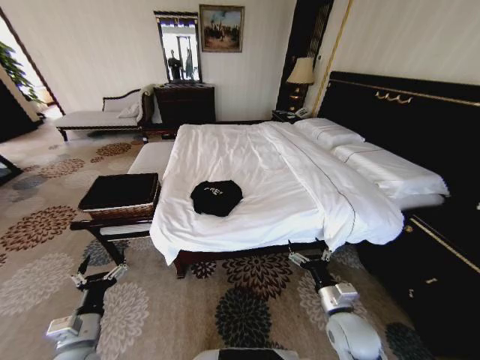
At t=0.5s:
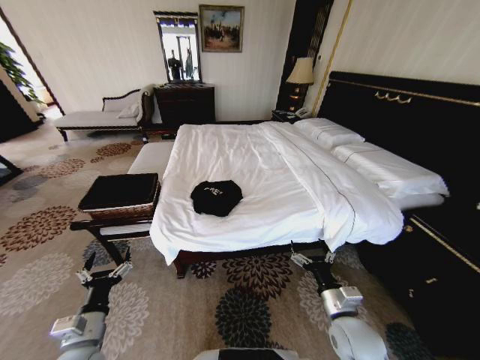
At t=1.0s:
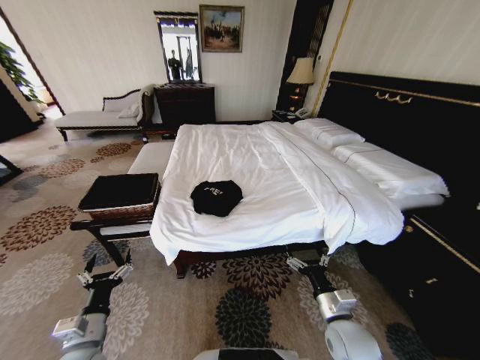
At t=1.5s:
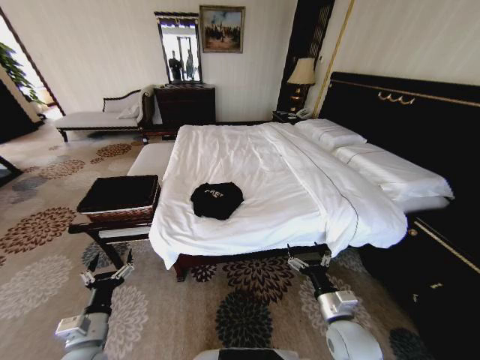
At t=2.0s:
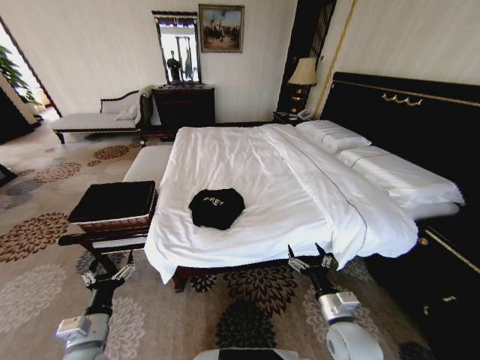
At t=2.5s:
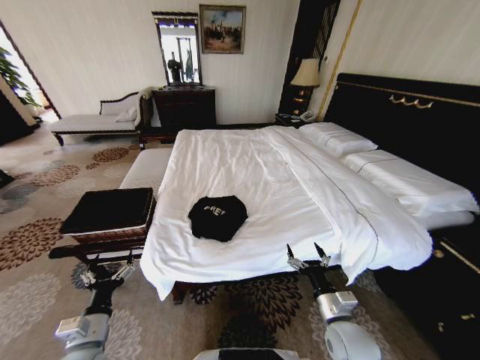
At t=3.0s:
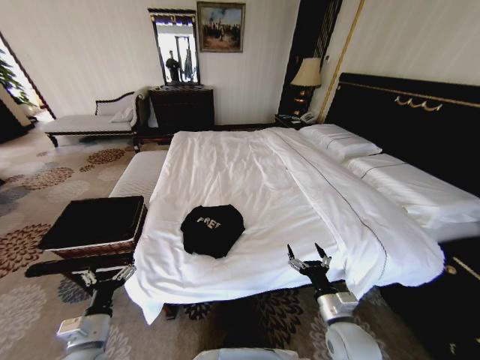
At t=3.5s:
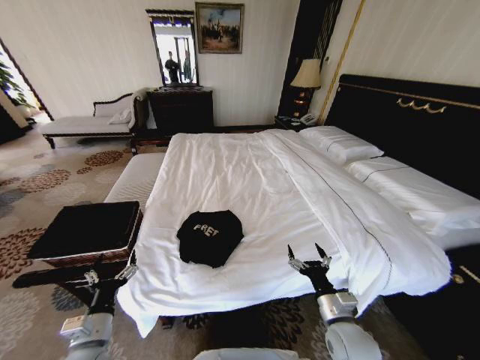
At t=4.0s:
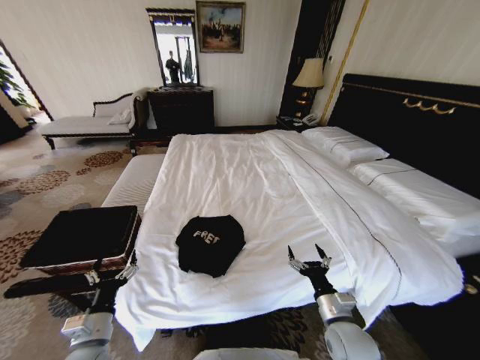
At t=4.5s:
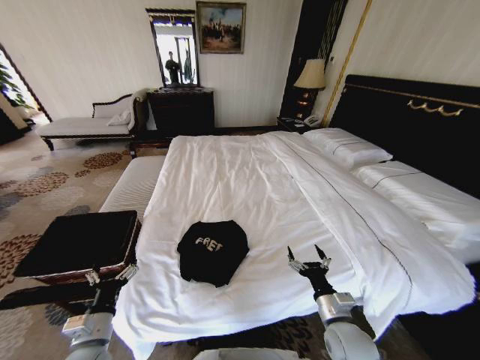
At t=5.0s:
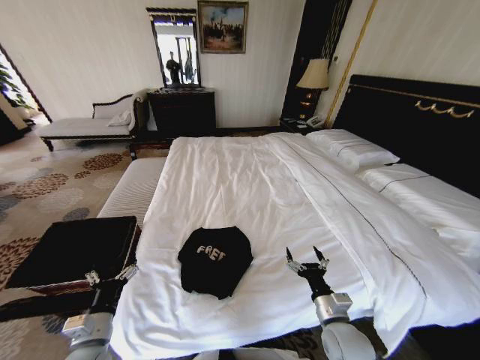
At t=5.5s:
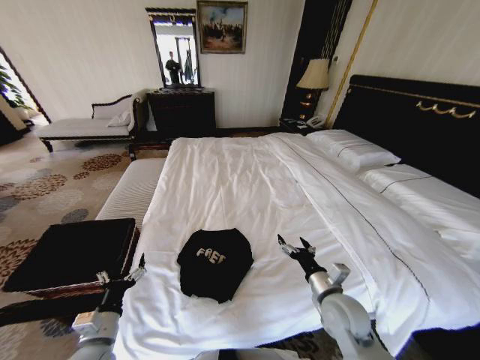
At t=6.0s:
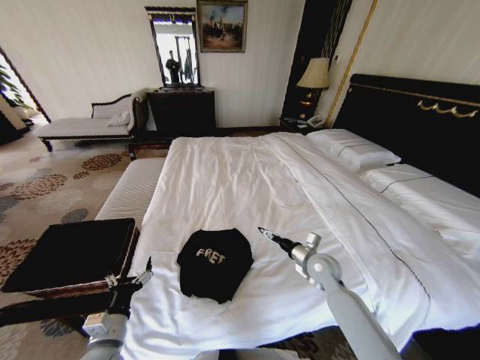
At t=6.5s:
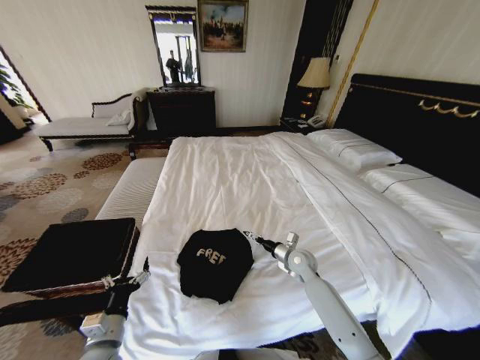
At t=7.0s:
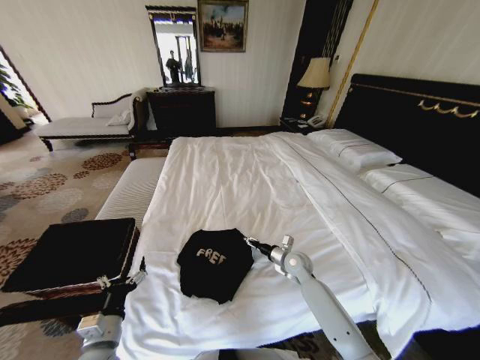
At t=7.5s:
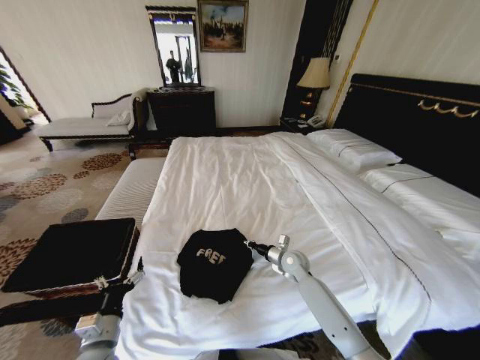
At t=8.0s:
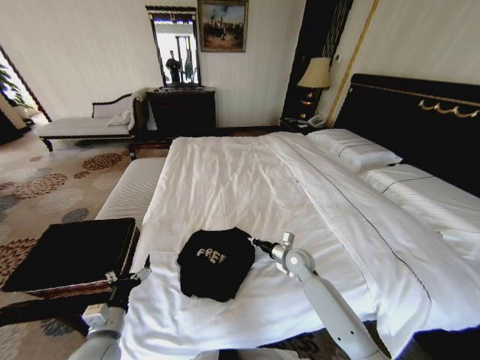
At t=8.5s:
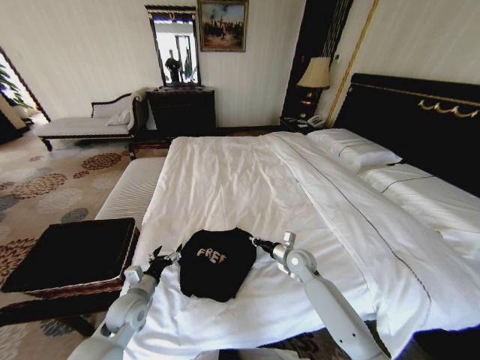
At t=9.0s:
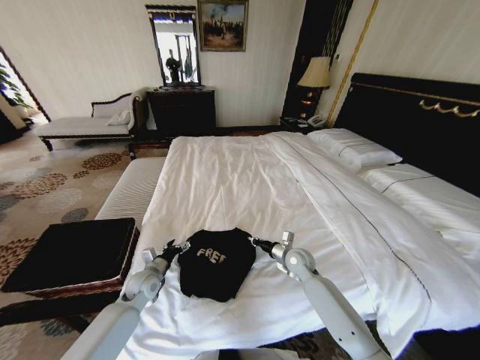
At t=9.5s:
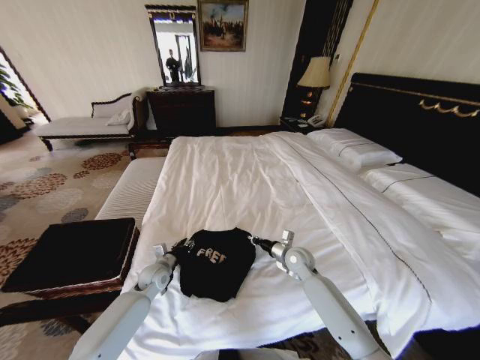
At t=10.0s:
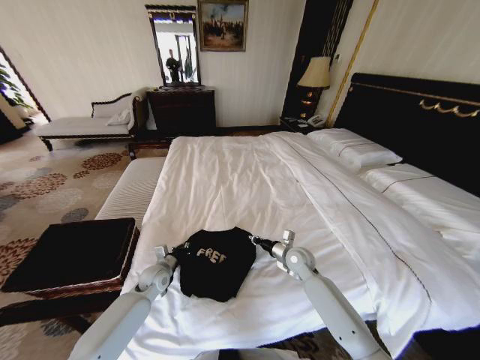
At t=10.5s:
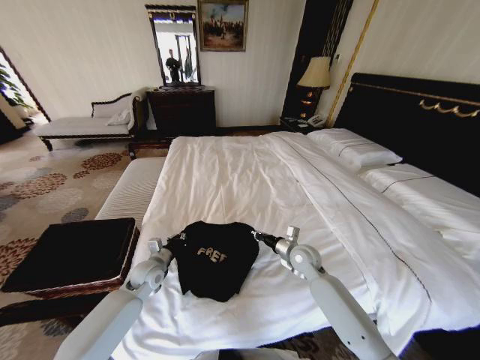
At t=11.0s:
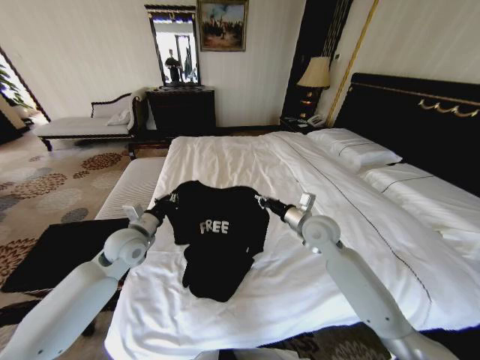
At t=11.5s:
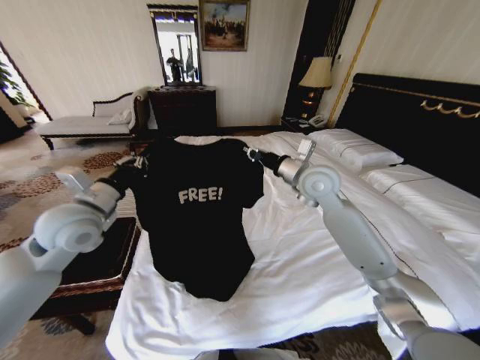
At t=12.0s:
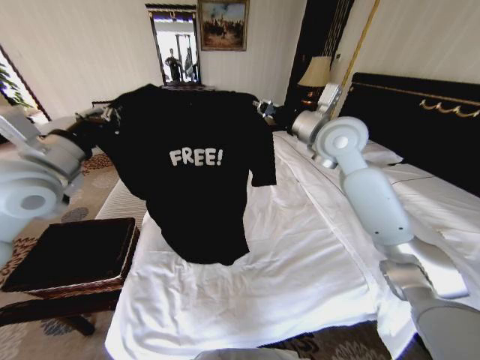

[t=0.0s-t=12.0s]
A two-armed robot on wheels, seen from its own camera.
Task of the whole recording: Fold the clothes on the bed and place them into the basket.
t=4.0s to t=6.0s: The right gripper moves forward, approximately 20 cm.
t=6.0s to t=8.0s: The right gripper shifts by approximately 10 cm, and closes up.
t=8.0s to t=10.0s: The left gripper is displaced forward by roughly 20 cm, and closes its fingers.
t=10.0s to t=12.0s: Both grippers move upward, some 40 cm.

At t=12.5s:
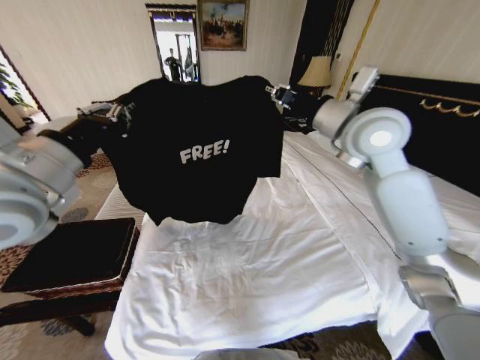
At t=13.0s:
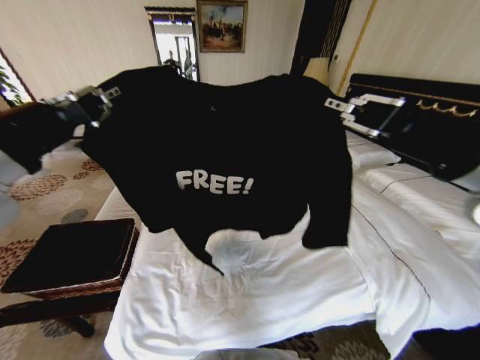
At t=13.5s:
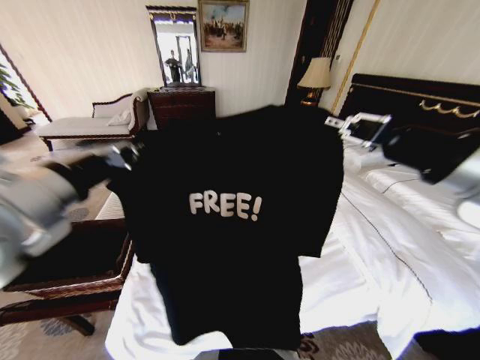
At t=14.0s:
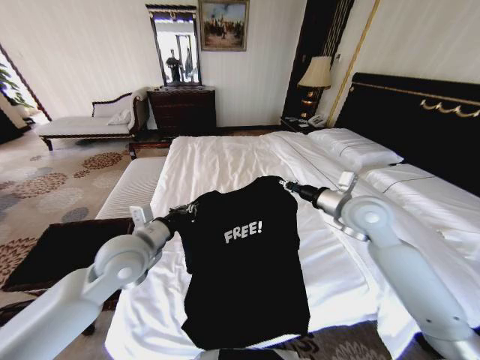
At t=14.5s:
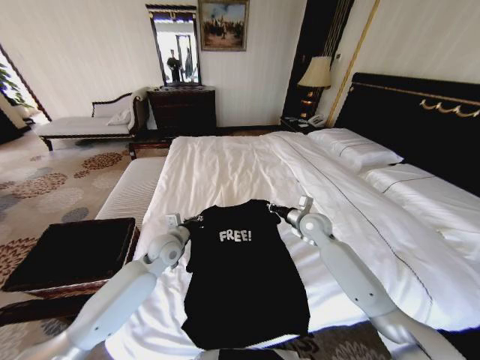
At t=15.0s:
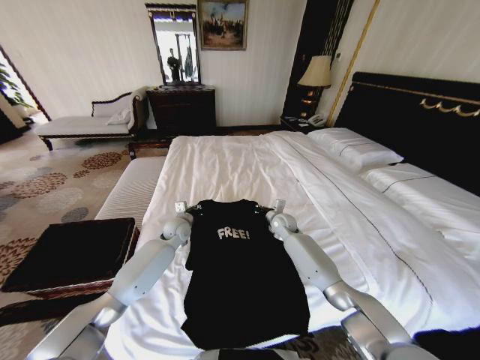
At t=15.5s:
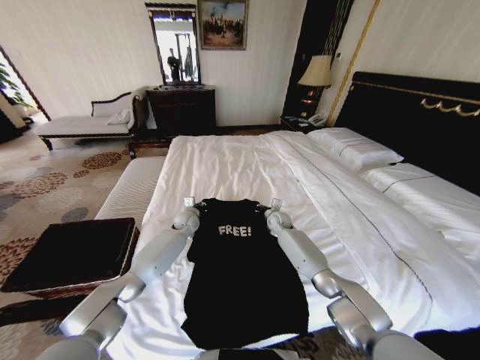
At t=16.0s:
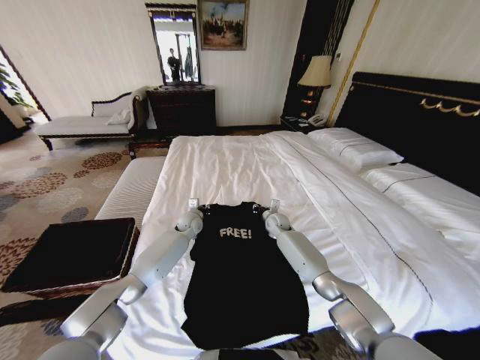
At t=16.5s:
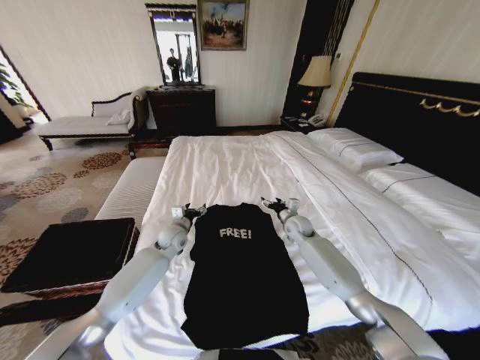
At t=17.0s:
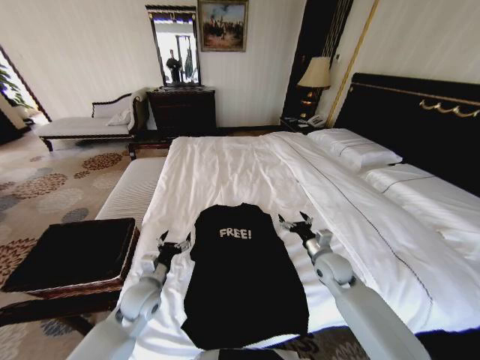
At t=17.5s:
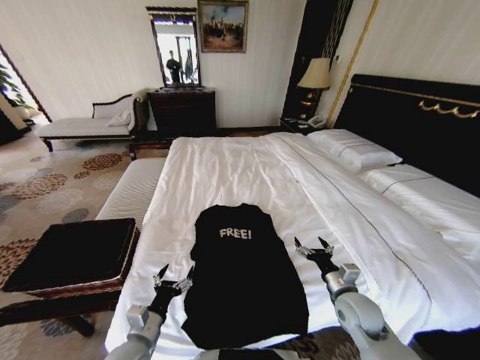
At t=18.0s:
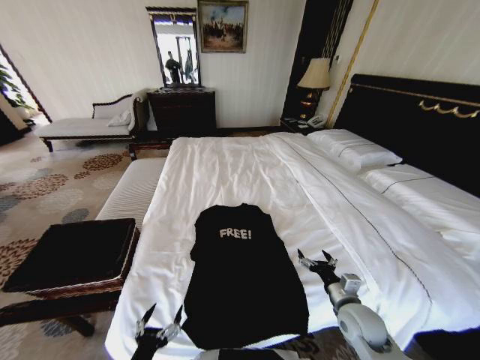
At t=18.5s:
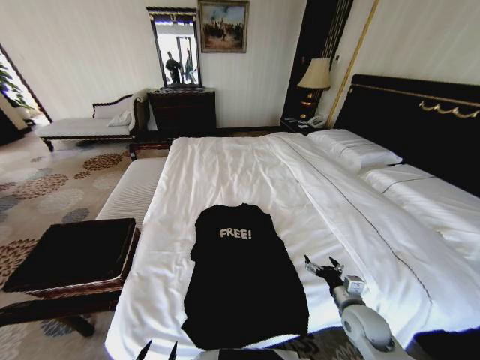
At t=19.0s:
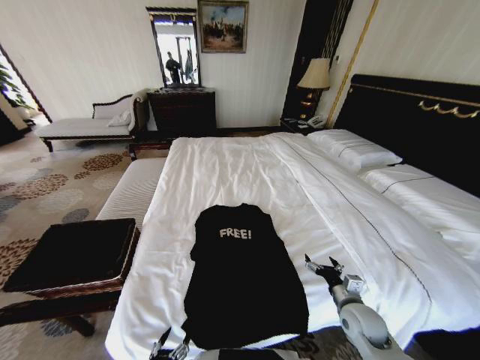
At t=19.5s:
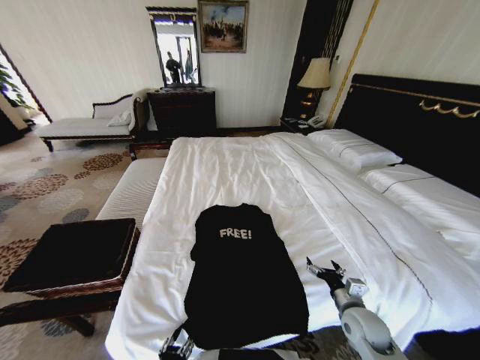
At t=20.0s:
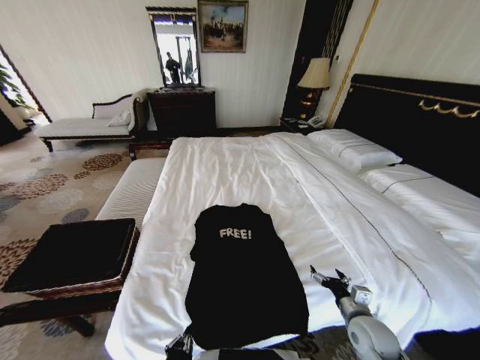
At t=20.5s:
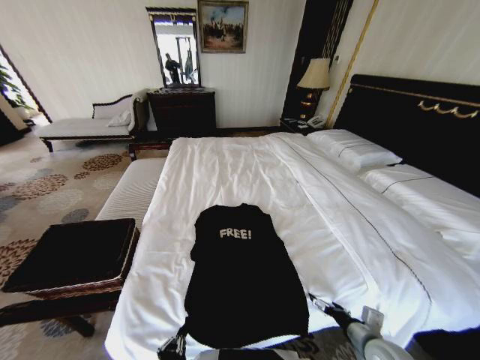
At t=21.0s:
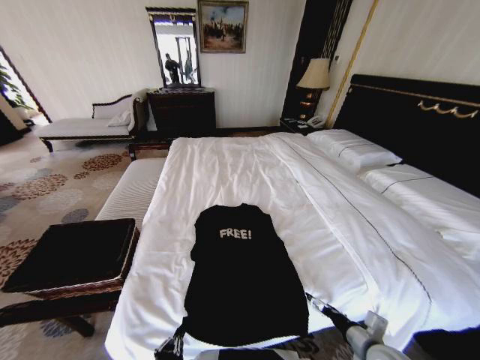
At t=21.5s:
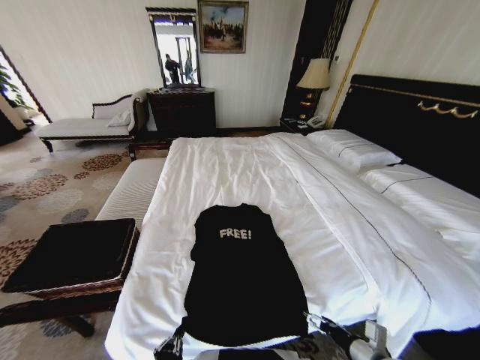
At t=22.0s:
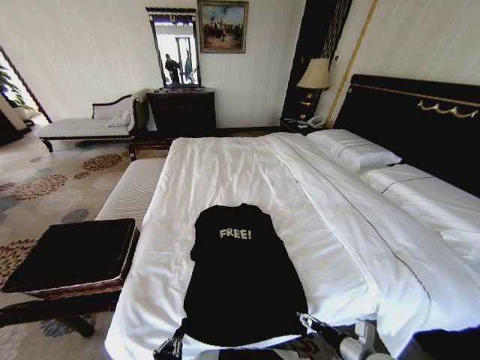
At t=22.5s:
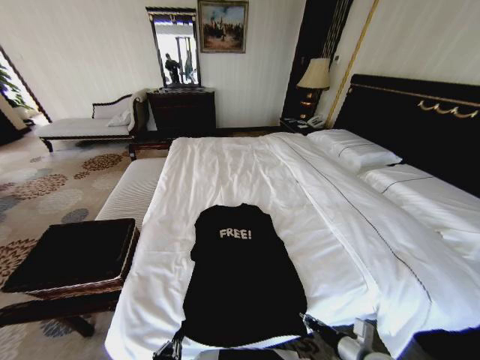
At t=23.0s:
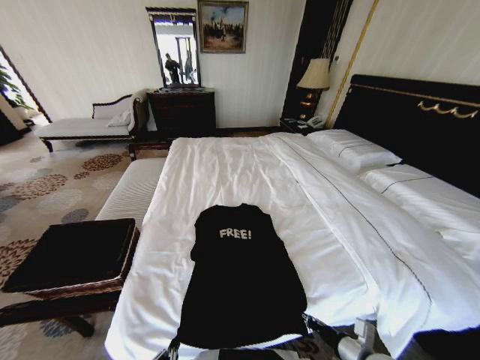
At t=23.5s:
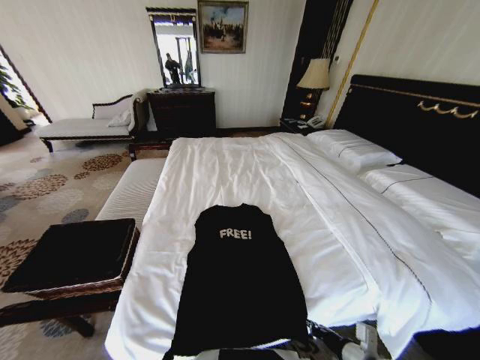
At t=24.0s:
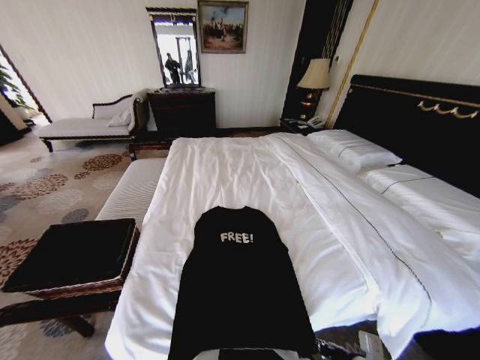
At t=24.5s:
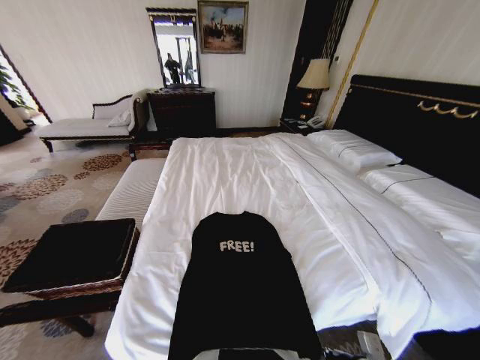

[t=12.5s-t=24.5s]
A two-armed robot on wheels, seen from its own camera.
Task of the whole recording: Fold the clothes on the bed and place them into the basket.
t=12.5s to t=14.5s: The two grippers go approximately 30 cm downward.
t=14.5s to t=16.5s: The right gripper shifts some 10 cm downward and forward, and opens its fingers. The left gripper heads forward, covering approximately 10 cm, and opens up.
t=16.5s to t=18.5s: The left gripper moves backward, about 50 cm. The right gripper is displaced backward by some 30 cm.
t=18.5s to t=20.5s: The left gripper shifts by roughly 5 cm, and closes up, while the right gripper goes roughly 5 cm backward.
t=20.5s to t=22.5s: The right gripper closes its fingers.
t=22.5s to t=24.5s: The right gripper shifts by roughly 5 cm. The left gripper is displaced backward and upward by some 15 cm.

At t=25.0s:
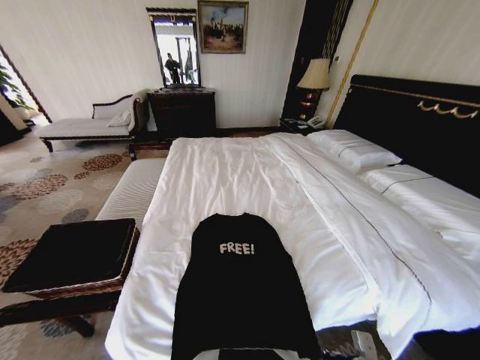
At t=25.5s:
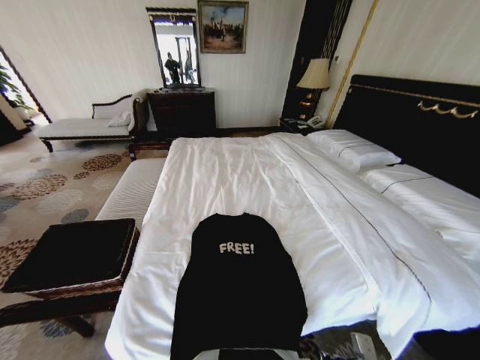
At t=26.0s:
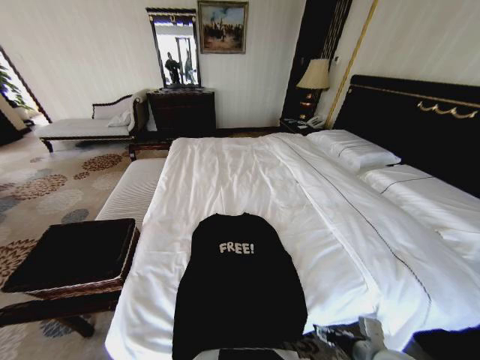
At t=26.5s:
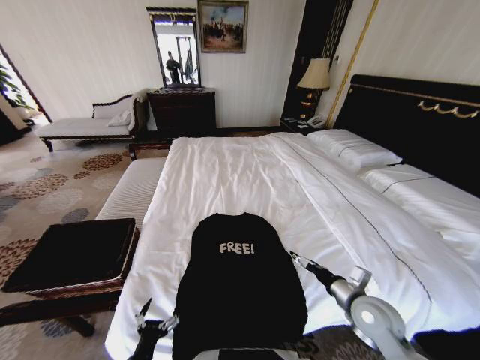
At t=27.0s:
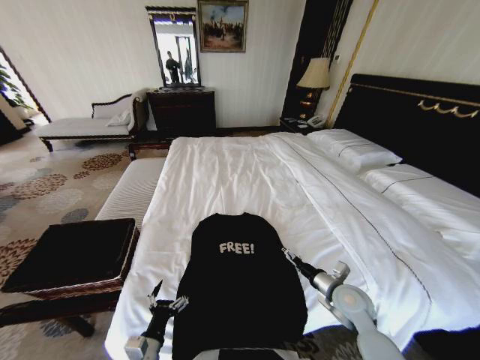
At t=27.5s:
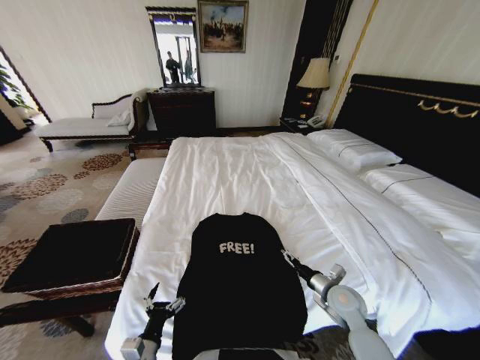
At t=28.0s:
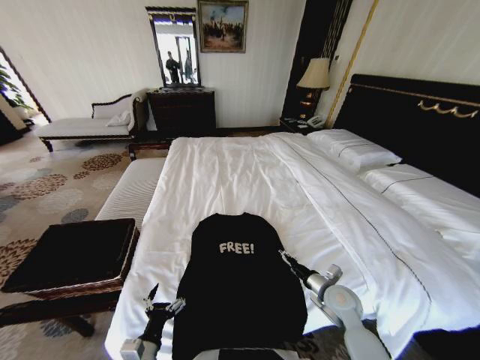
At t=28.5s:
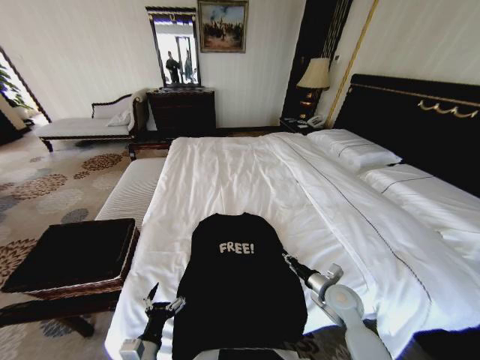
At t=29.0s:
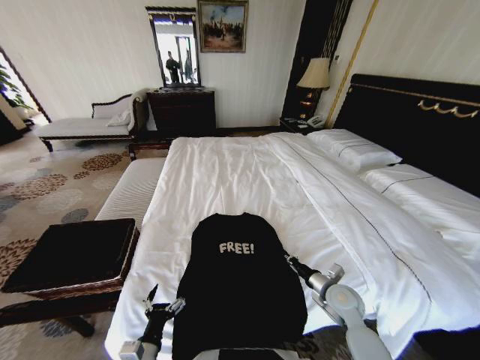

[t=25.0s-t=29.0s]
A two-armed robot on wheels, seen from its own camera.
Task of the whole recording: Fold the clothes on the bed and place them into the basket.
t=25.0s to t=27.0s: Both grippers travel together forward, some 15 cm. The left gripper opens its fingers; the right gripper opens.
t=27.0s to t=29.0s: The right gripper closes up.
